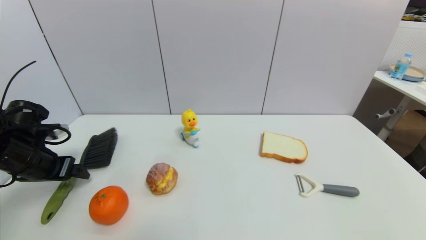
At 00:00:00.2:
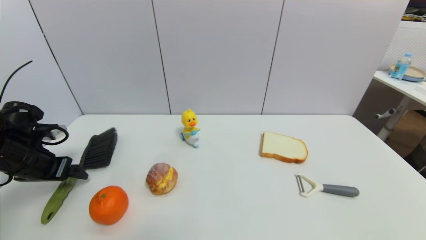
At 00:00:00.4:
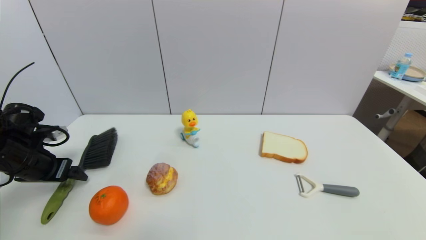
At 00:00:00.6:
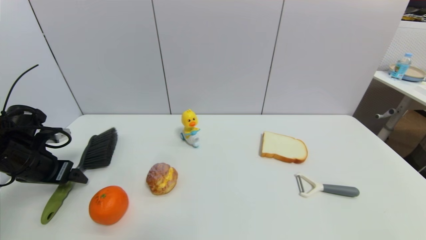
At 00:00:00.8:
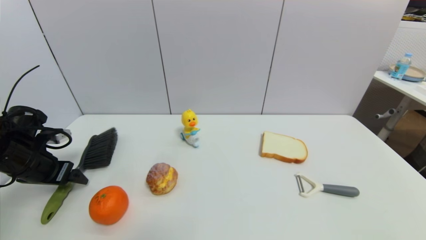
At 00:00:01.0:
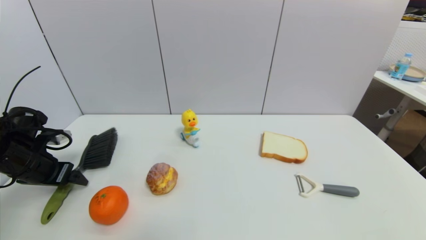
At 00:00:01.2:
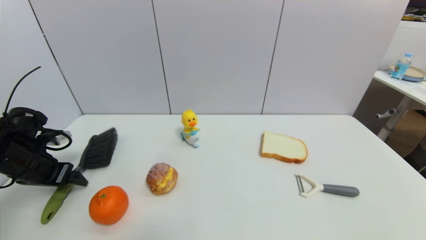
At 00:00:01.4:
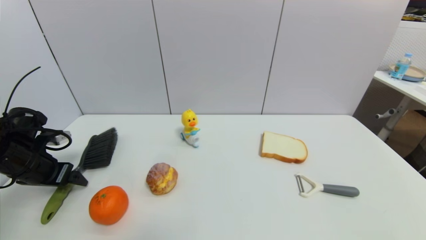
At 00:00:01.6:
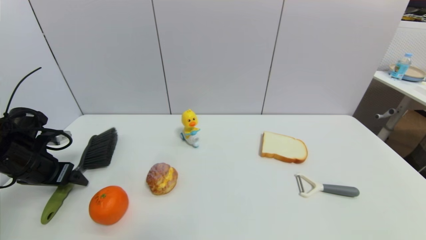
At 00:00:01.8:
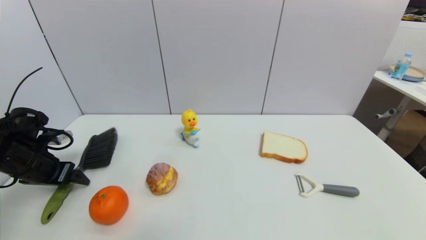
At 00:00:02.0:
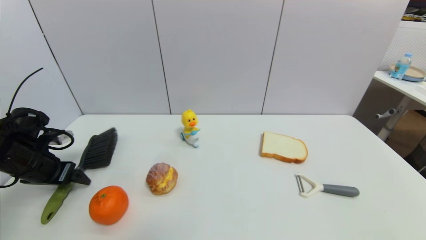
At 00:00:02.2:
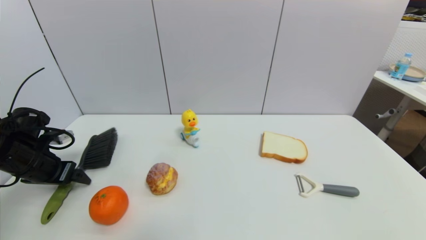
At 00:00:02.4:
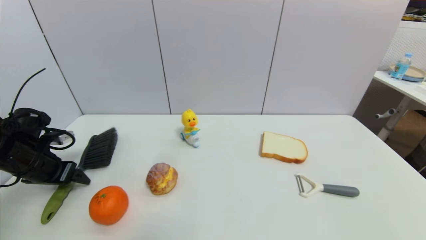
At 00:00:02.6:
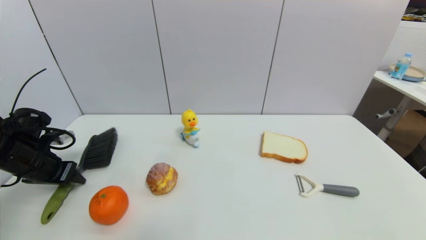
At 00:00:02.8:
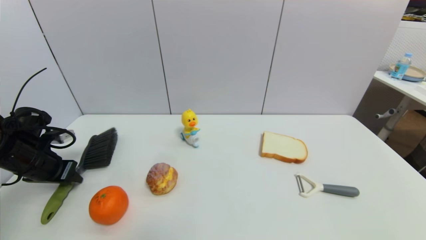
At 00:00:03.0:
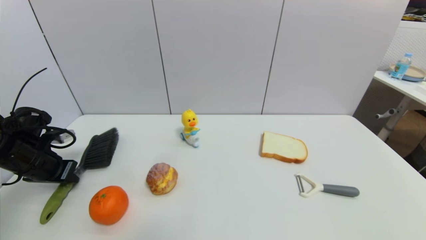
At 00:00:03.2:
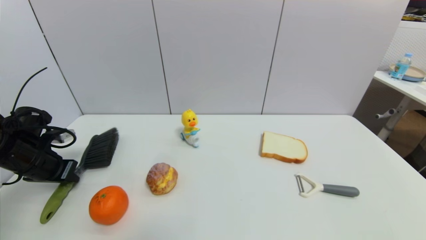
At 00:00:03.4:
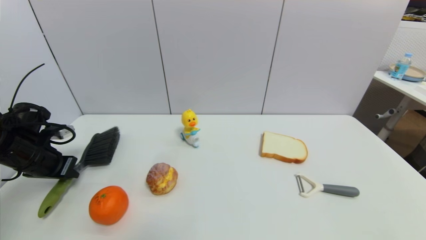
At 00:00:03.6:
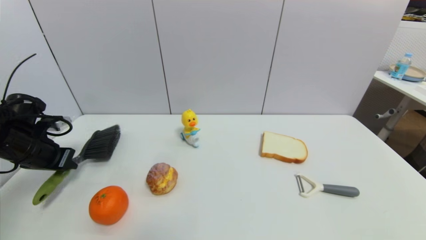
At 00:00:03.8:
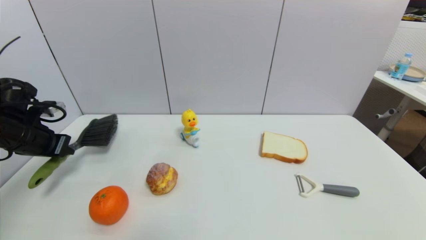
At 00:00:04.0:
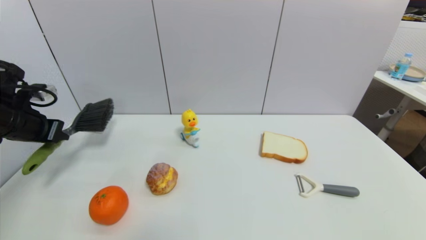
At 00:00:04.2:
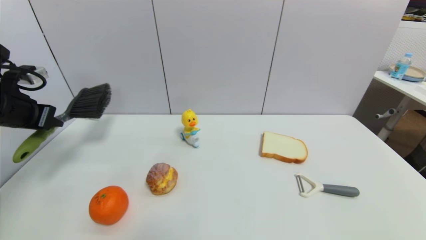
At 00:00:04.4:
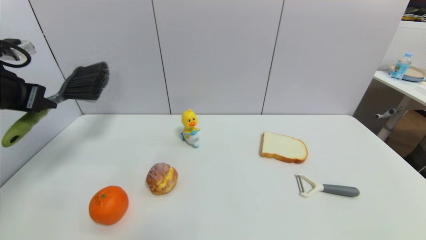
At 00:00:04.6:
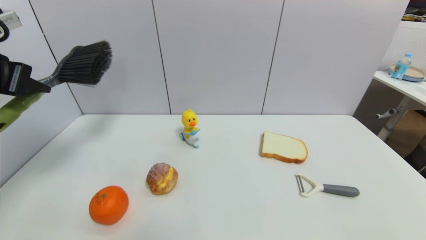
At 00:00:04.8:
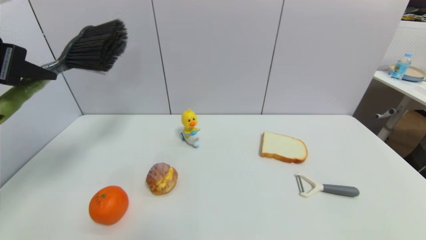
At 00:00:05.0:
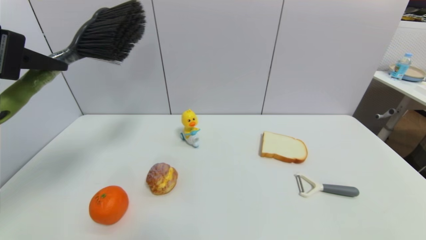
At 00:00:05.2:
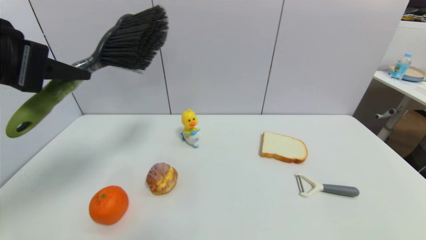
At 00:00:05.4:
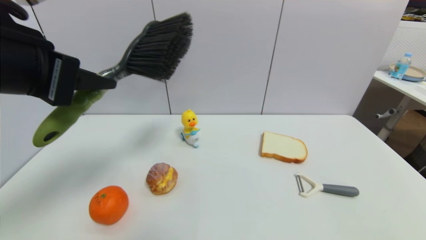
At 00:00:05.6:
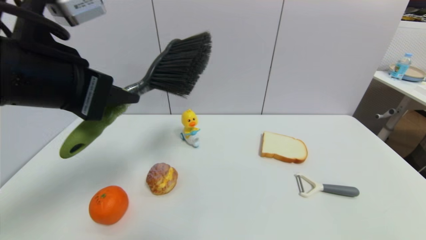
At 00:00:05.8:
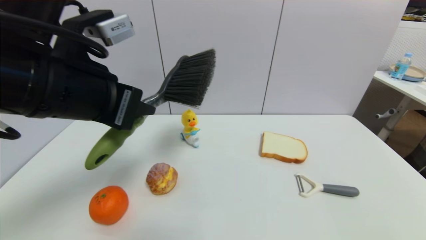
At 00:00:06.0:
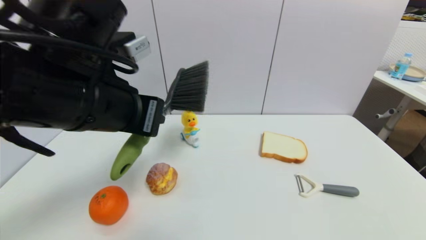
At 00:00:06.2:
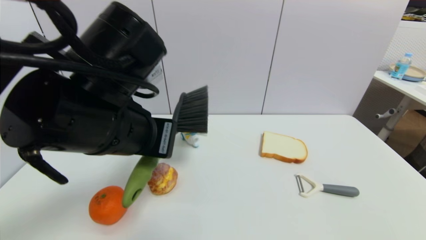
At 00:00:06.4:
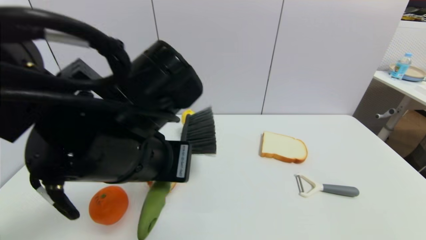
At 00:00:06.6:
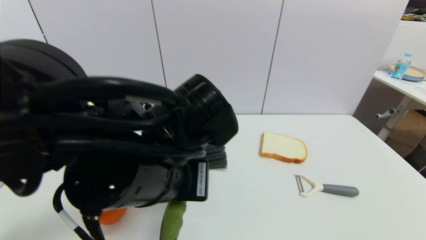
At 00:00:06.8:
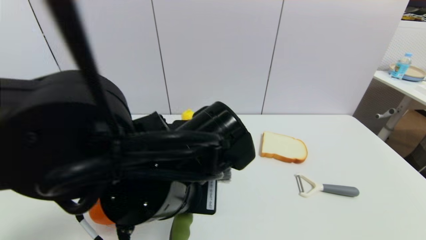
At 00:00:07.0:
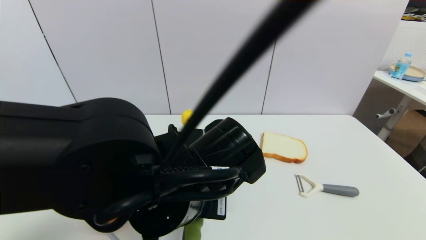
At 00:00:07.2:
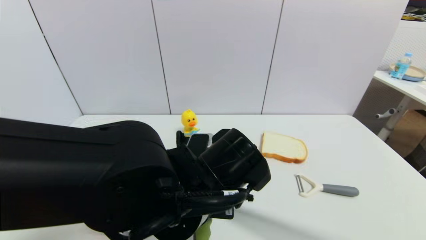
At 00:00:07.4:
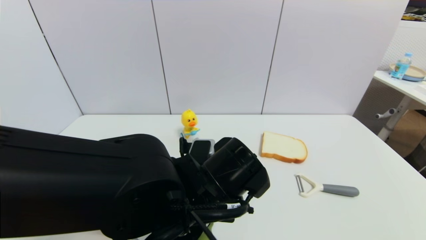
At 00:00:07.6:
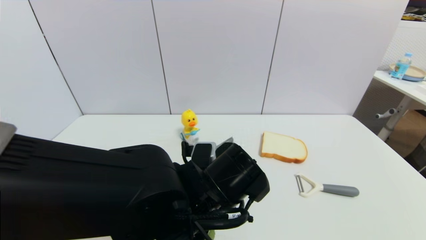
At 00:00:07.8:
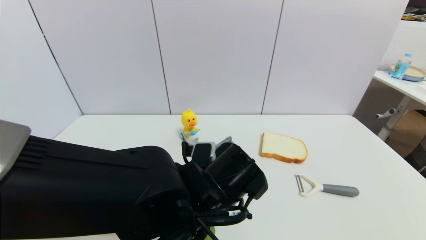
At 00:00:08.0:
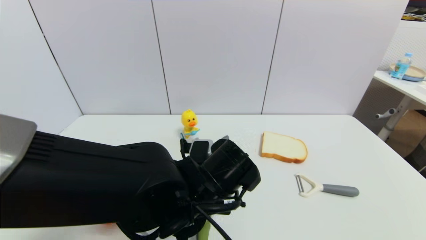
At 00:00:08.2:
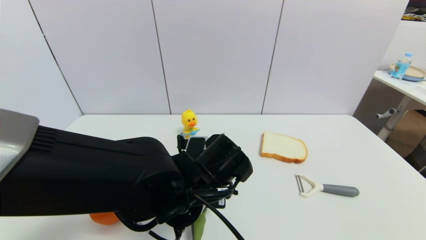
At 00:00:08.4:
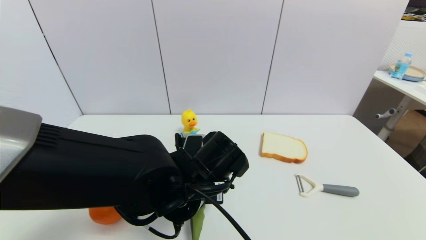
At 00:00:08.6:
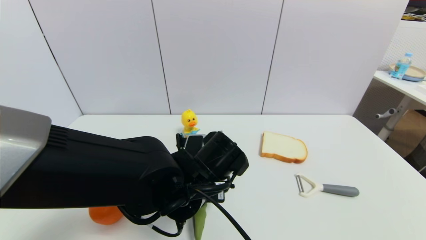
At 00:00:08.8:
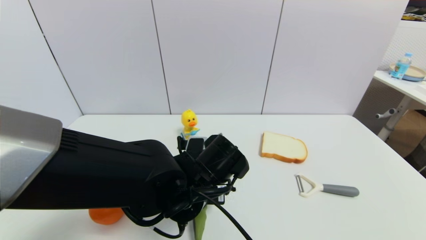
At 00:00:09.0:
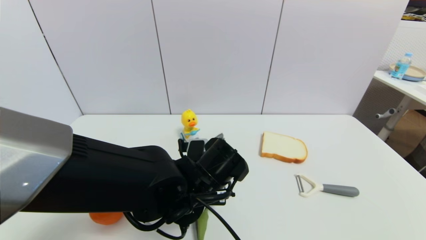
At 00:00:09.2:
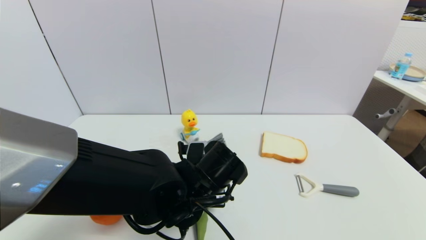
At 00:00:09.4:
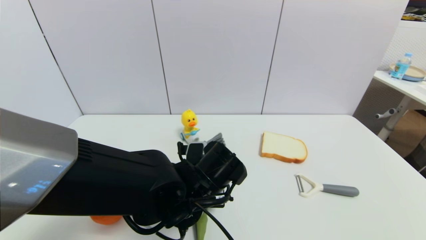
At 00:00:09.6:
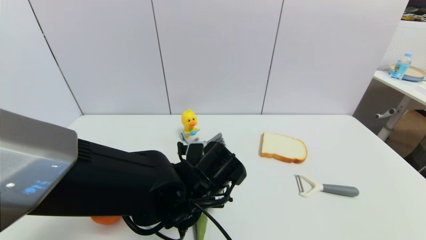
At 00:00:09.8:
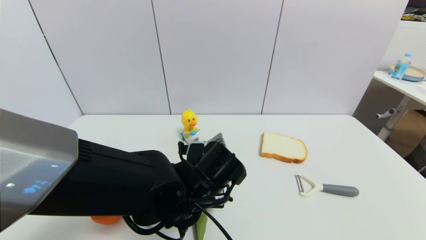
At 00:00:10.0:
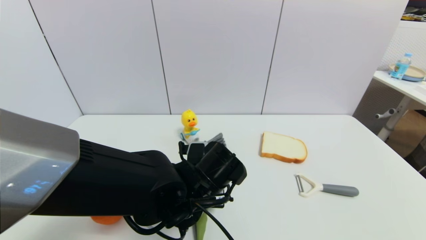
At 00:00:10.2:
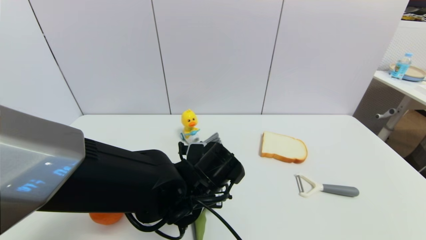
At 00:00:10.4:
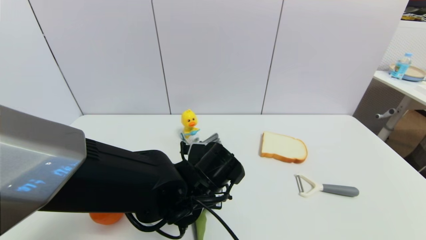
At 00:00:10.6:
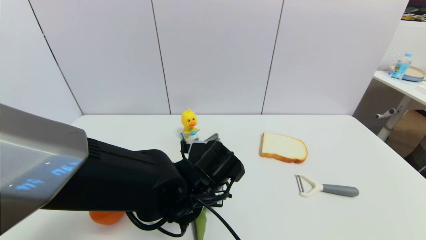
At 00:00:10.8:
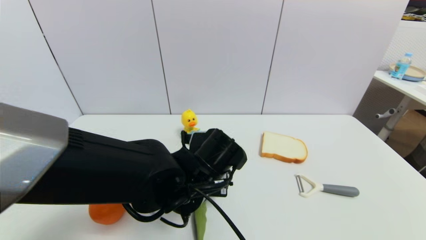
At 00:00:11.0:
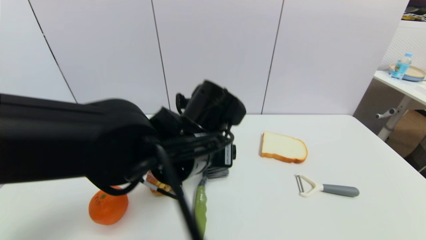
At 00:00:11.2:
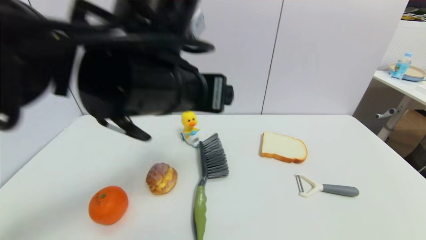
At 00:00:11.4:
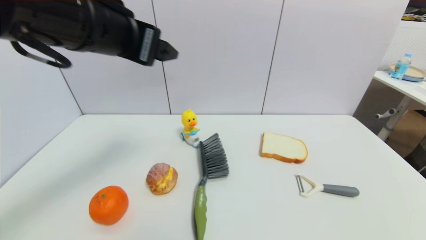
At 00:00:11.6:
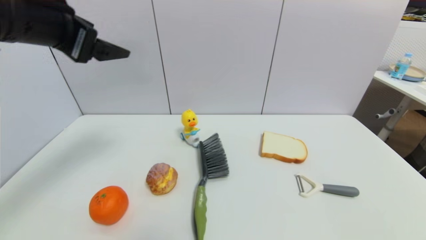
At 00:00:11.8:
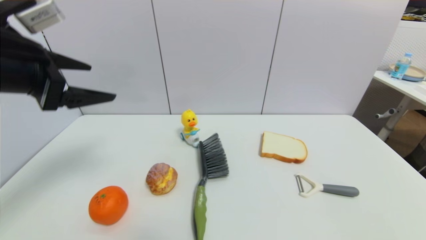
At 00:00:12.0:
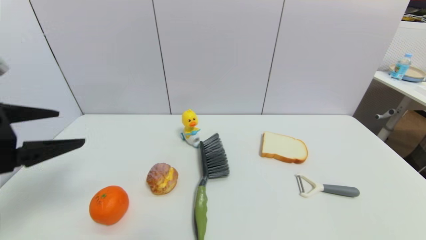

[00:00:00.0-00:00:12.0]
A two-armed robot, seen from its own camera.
Task of the whole recording: put the brush in the designated position.
Step, 00:00:00.0 to 00:00:03.8: Grasp the brush with left gripper.
Step, 00:00:04.0 to 00:00:10.8: Place the brush on the table with left gripper.
00:00:00.0 to 00:00:01.6: The grippers make only small movements.
00:00:01.6 to 00:00:03.0: The left gripper closes its fingers.
00:00:03.0 to 00:00:04.4: The left gripper is displaced upward by roughly 20 cm.
00:00:04.4 to 00:00:06.0: The left gripper goes approximately 20 cm to the right.
00:00:06.0 to 00:00:07.6: The left gripper is displaced downward and to the right by about 20 cm.
00:00:07.6 to 00:00:09.0: The grippers make only small movements.
00:00:09.0 to 00:00:10.4: The left gripper opens its fingers.
00:00:10.4 to 00:00:12.0: The left gripper heads to the left and upward, covering about 30 cm, and opens its fingers.

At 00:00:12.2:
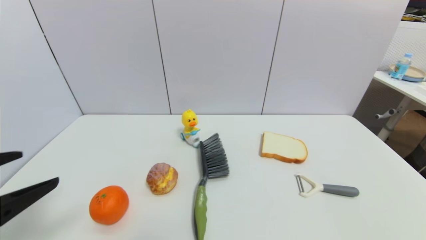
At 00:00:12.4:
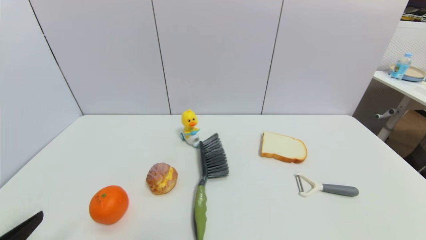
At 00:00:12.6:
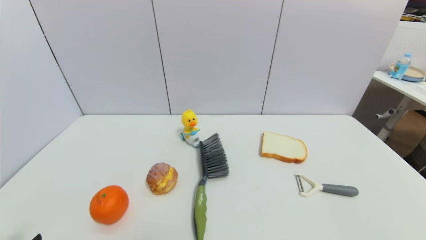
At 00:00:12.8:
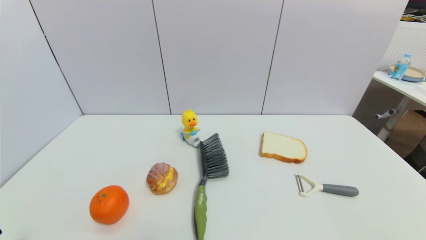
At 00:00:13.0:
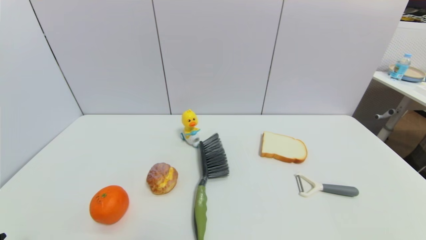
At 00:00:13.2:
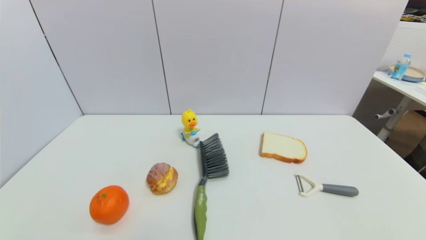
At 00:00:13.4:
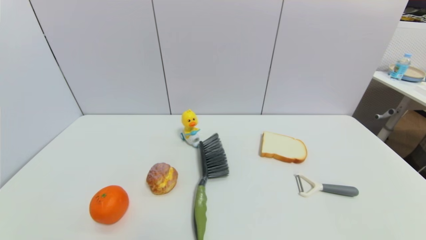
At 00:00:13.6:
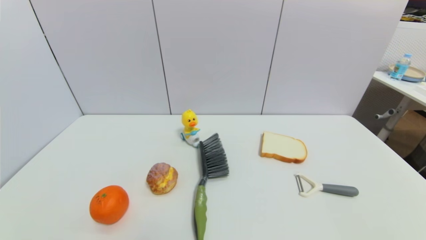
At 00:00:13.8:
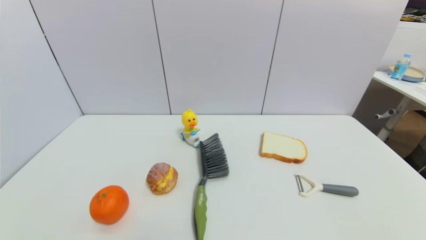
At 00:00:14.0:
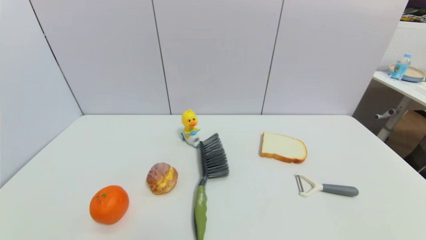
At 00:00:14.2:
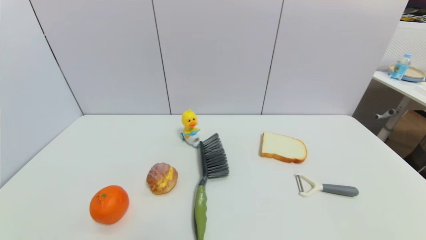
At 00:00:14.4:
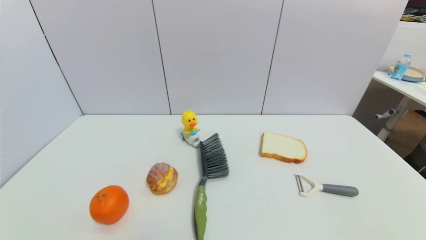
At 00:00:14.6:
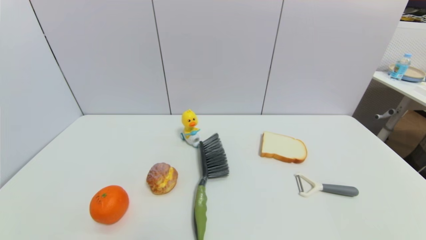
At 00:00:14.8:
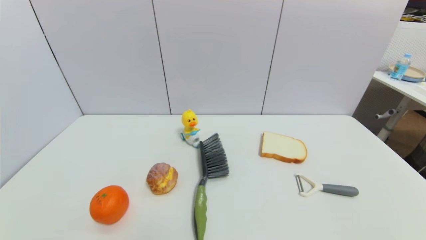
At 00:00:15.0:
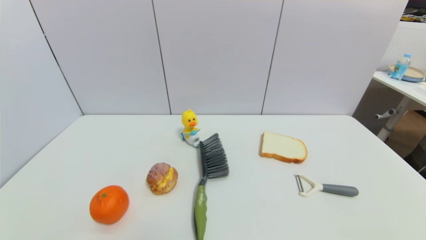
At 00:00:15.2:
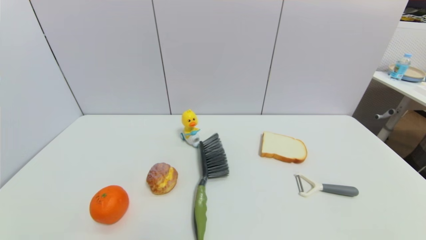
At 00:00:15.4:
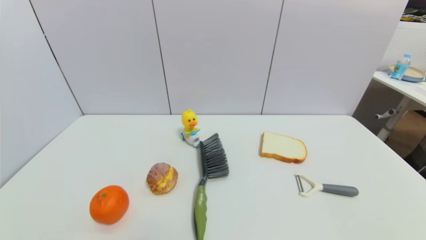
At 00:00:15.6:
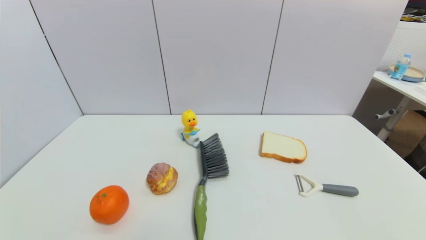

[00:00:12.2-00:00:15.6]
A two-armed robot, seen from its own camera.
Task of the whole recording: put the brush in the designated position.
00:00:12.2 to 00:00:13.8: The left gripper goes about 20 cm downward and backward.
